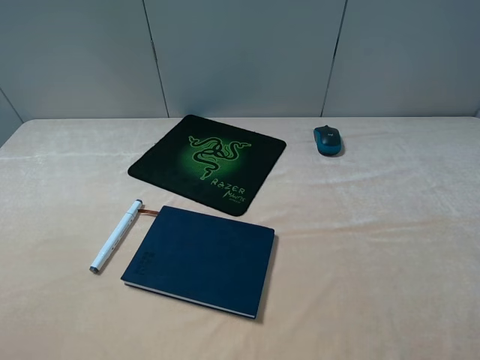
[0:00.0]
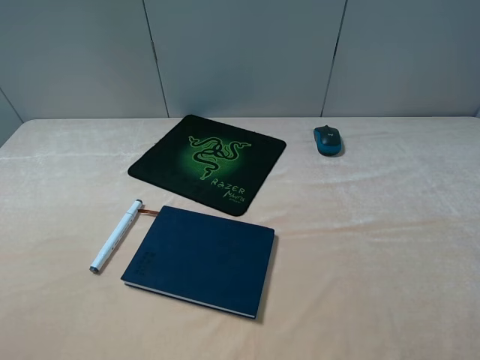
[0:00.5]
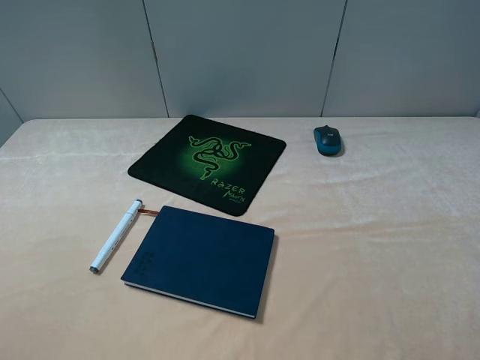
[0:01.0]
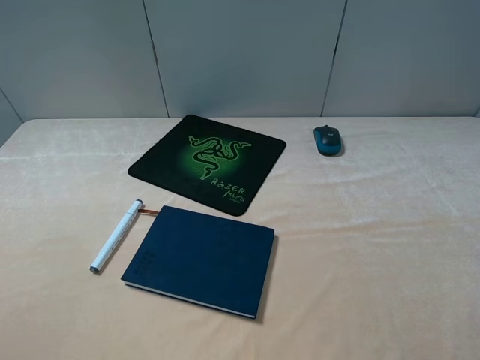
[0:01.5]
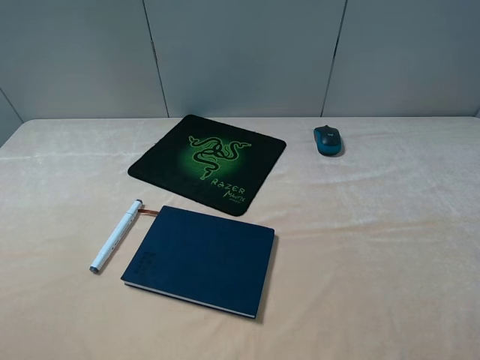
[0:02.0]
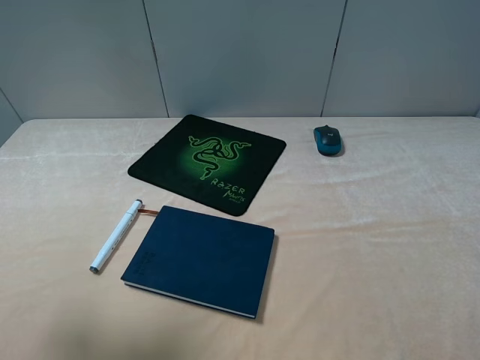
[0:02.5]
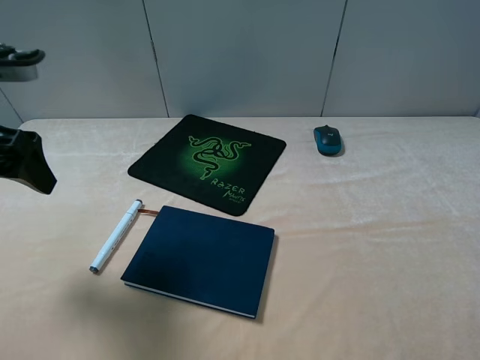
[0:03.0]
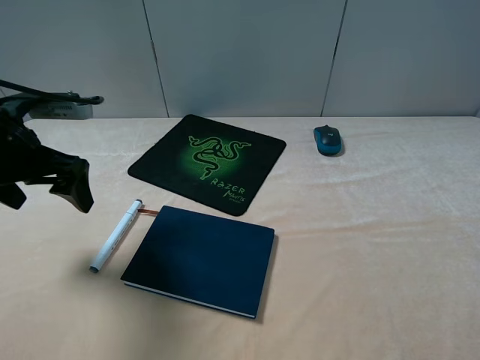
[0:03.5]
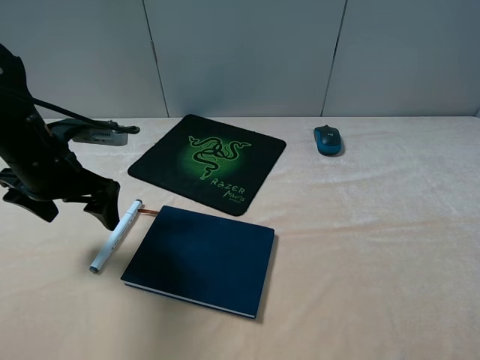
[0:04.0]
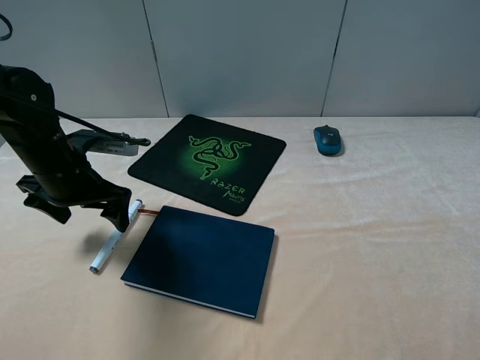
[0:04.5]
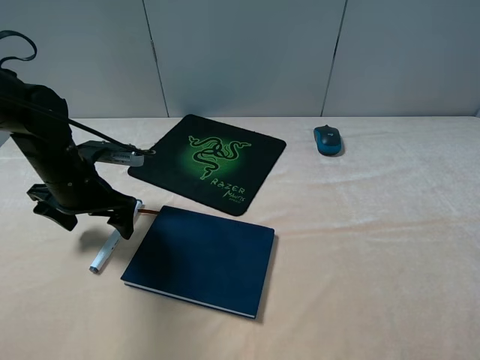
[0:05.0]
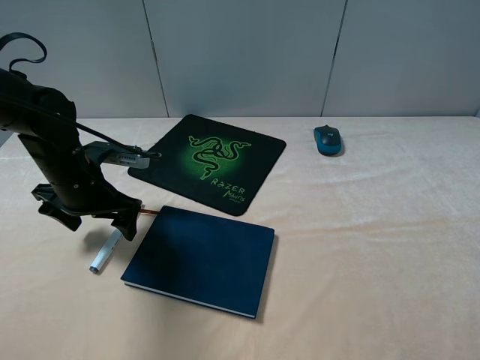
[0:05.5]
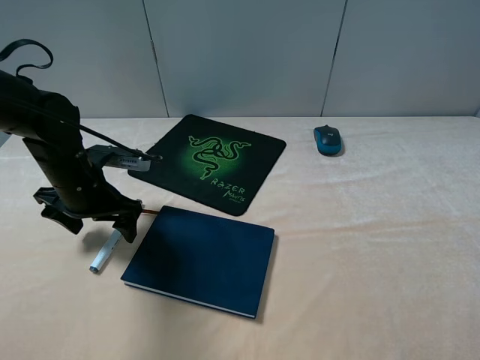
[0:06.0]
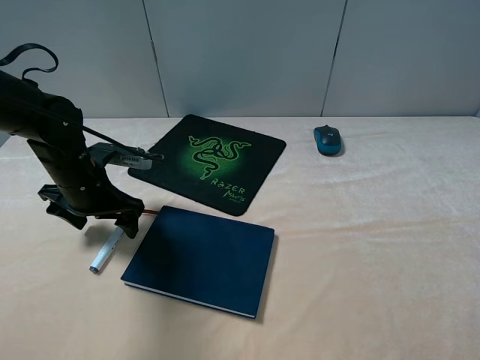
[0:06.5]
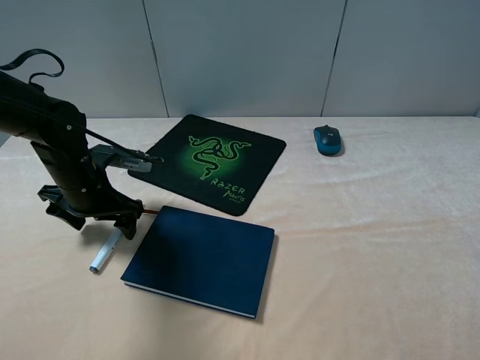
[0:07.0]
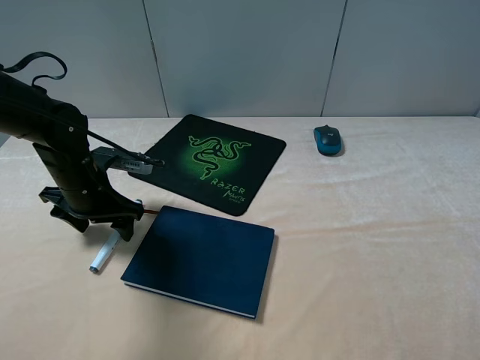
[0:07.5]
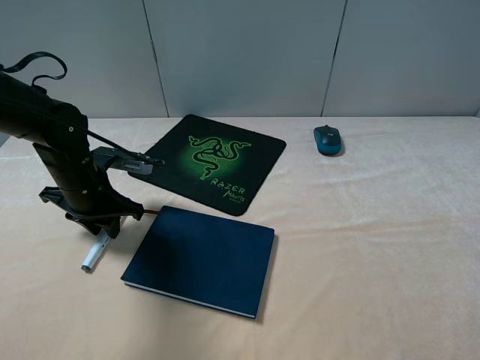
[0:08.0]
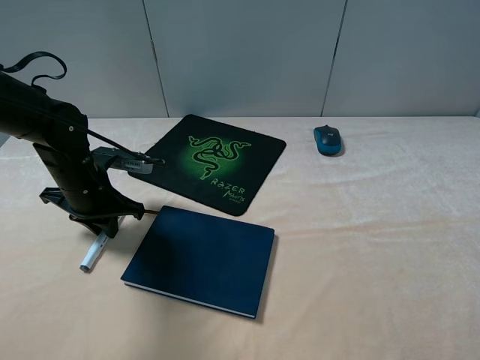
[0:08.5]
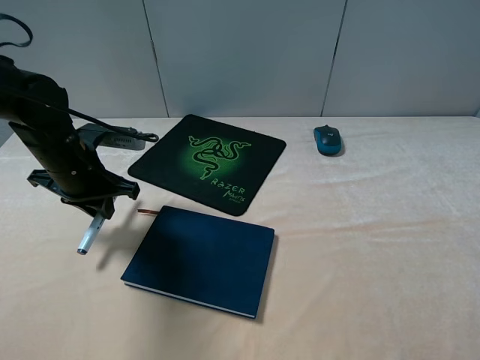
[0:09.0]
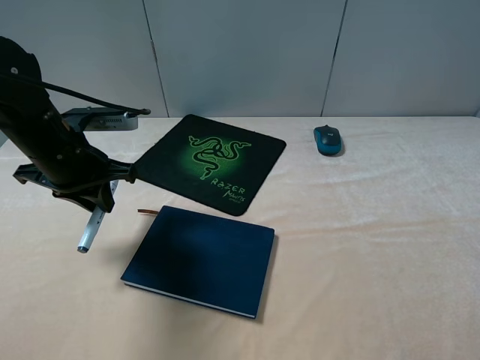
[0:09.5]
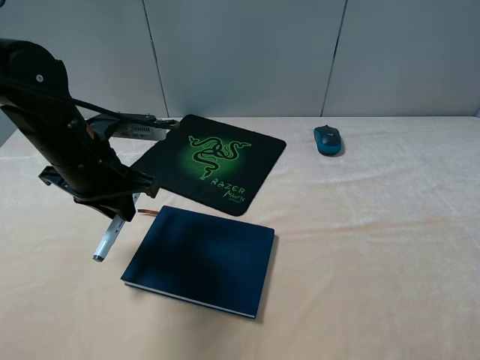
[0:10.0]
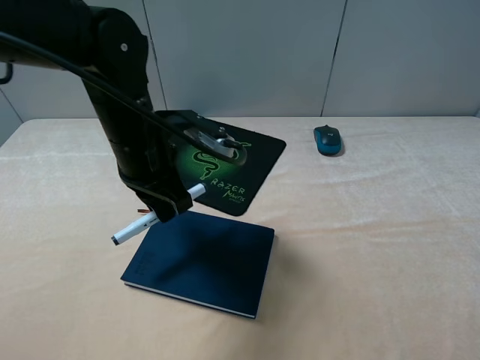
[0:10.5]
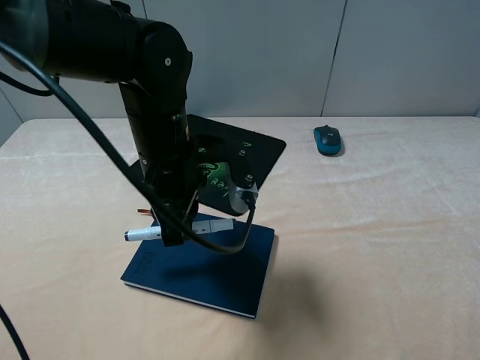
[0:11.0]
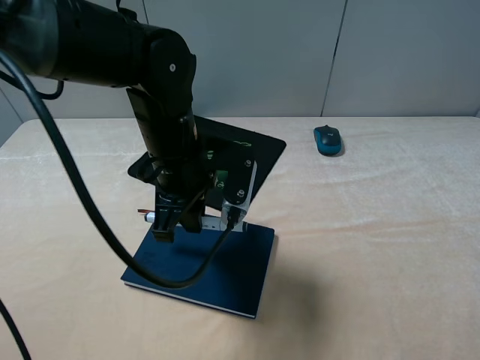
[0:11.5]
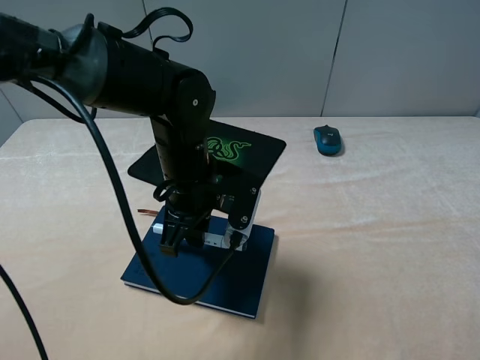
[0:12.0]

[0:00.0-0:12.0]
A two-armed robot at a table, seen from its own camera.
Step, 0:00.0 to 0:08.0: Grasp the marker with the left gripper.
0:02.0 to 0:04.0: The left gripper shifts some 30 cm forward and downward.
0:04.0 to 0:06.0: The left gripper moves downward, some 5 cm.
0:06.0 to 0:08.0: The left gripper closes its fingers.
0:08.0 to 0:10.0: The left gripper heads upward, covering approximately 10 cm.
0:10.0 to 0:12.0: The left gripper heads to the right, covering some 15 cm.

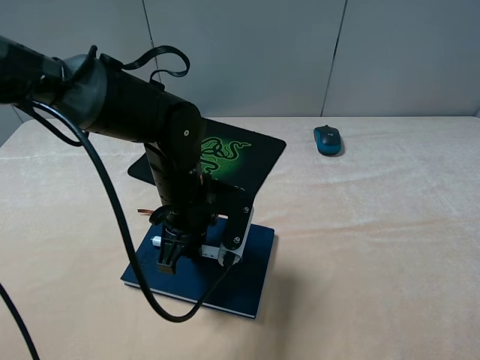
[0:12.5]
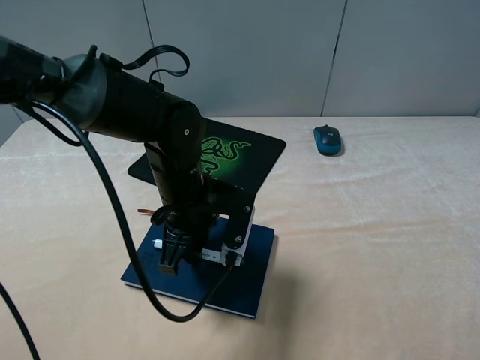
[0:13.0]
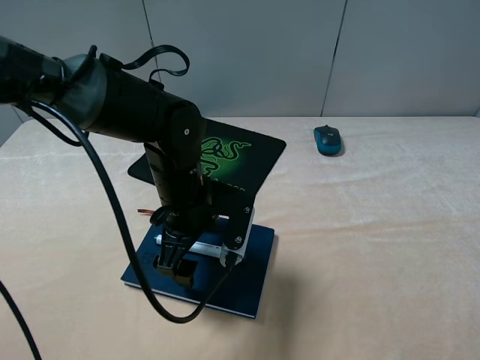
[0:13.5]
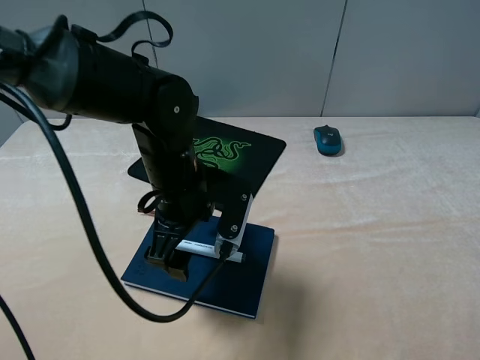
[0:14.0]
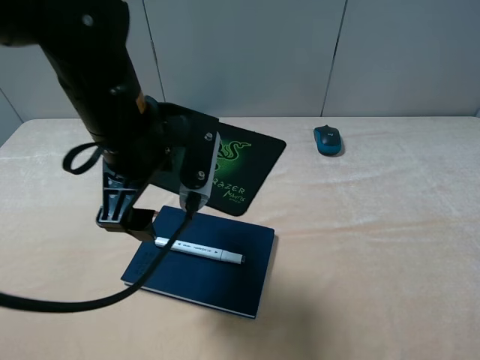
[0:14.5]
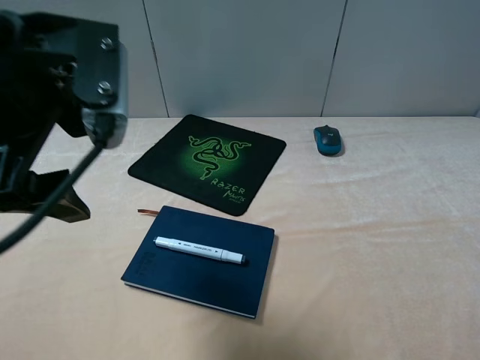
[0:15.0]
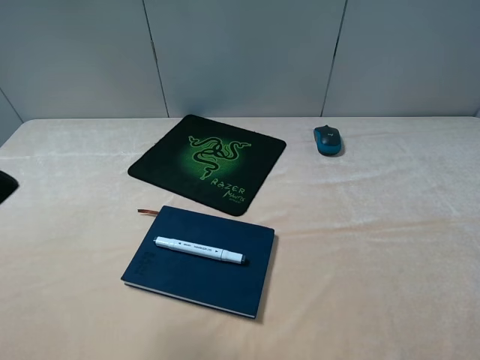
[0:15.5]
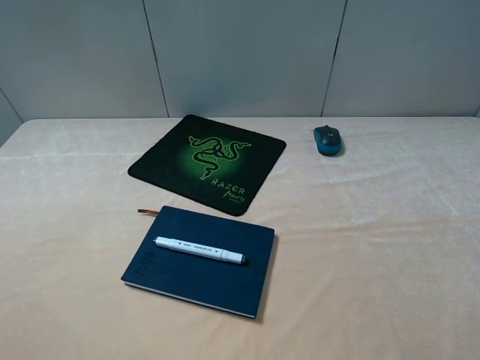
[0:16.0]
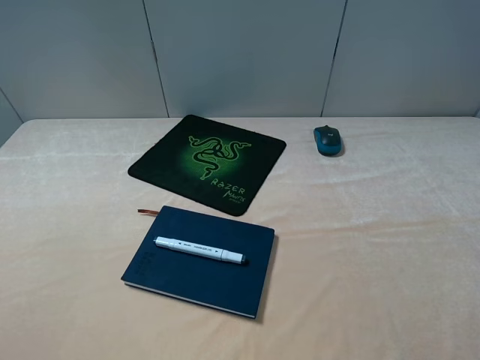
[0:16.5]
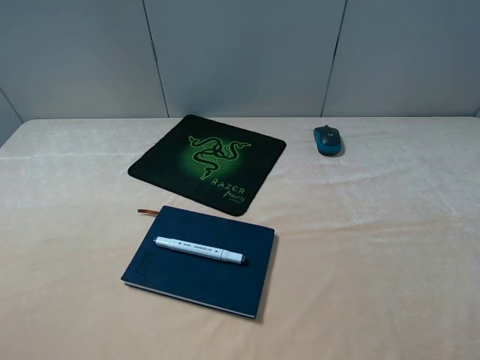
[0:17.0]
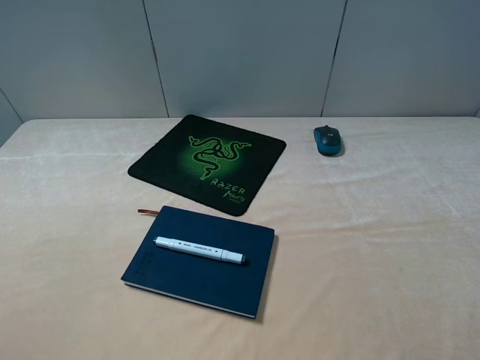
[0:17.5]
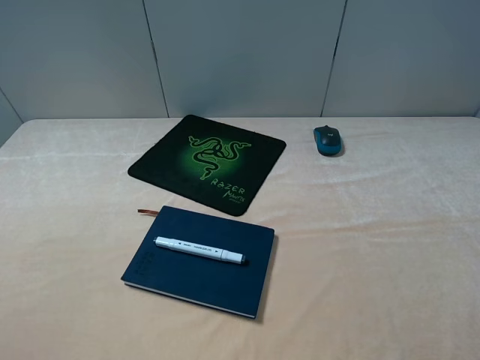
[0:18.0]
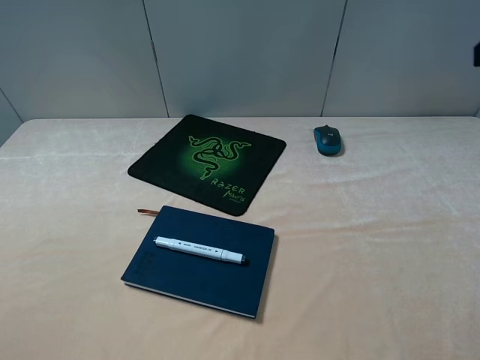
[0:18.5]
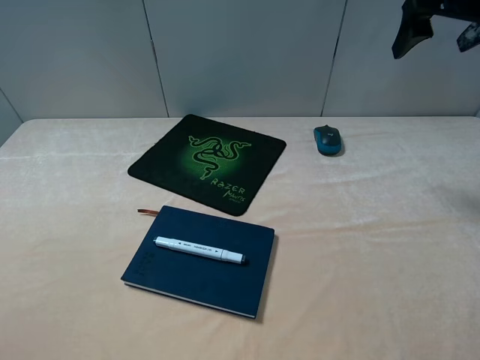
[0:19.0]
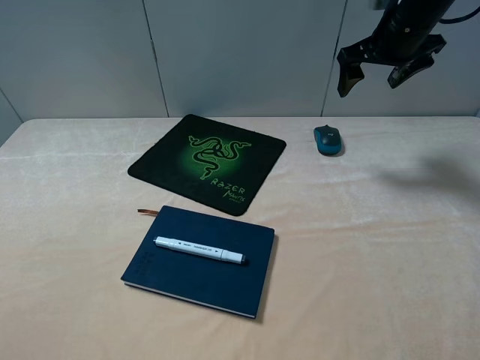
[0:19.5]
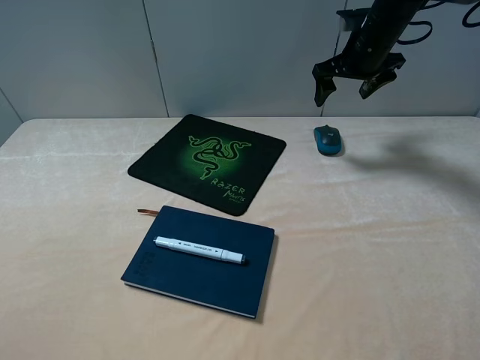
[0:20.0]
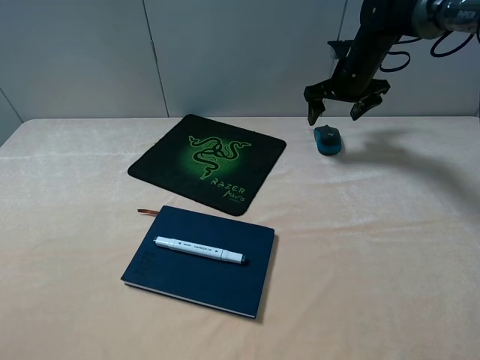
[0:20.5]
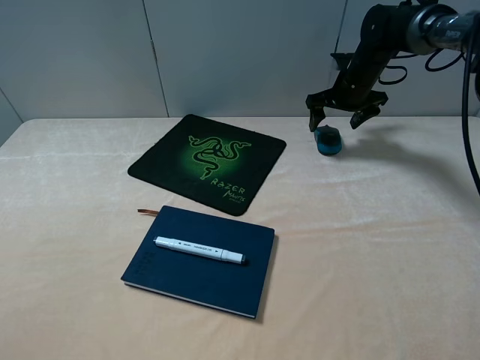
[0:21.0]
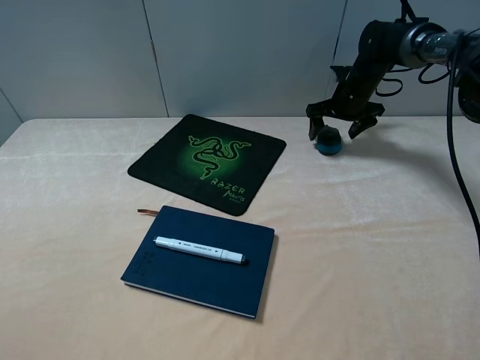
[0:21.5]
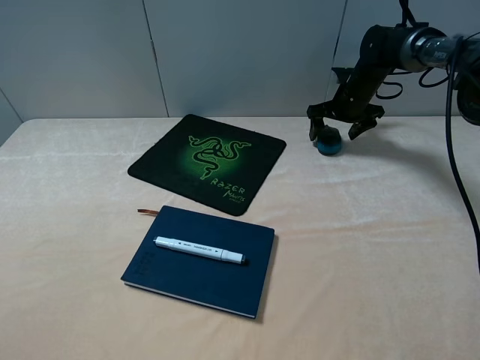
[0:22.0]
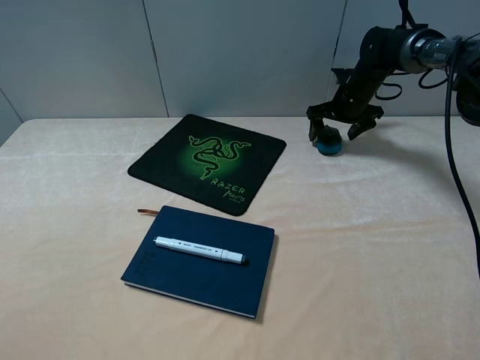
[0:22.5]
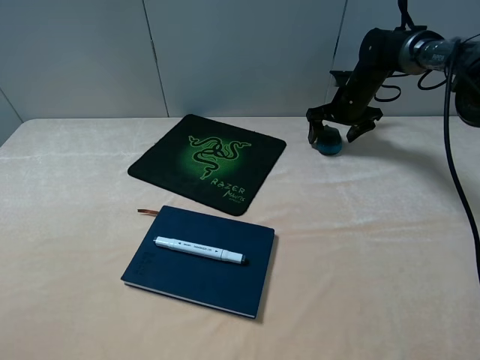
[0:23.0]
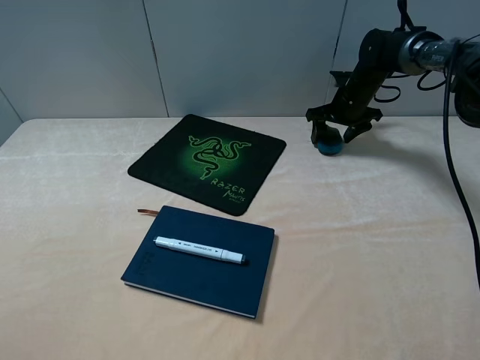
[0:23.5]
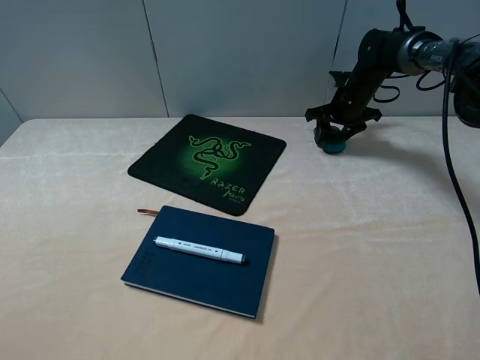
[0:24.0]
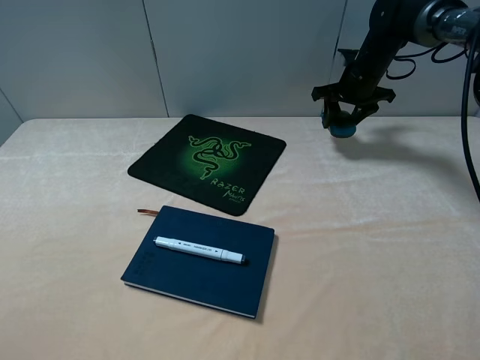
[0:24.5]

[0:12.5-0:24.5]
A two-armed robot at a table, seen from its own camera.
Step, 0:14.5 to 0:23.5: Grasp the mouse with the right gripper.
0:12.5 to 0:14.5: The left gripper heads upward, covering approximately 10 cm, and opens up.
0:14.5 to 0:16.5: The left gripper heads backward and to the left, covering approximately 30 cm.
0:18.5 to 0:20.5: The right gripper travels forward and downward by roughly 35 cm.
0:20.5 to 0:22.5: The right gripper travels downward by roughly 5 cm.
0:22.5 to 0:24.5: The right gripper is displaced upward by roughly 5 cm, and closes up.

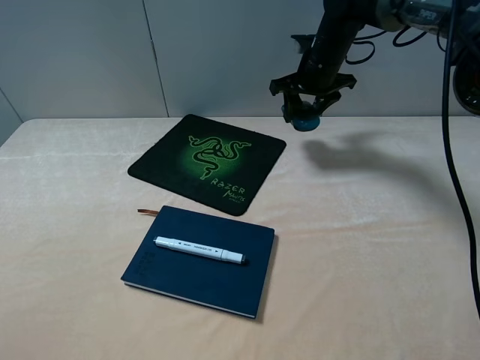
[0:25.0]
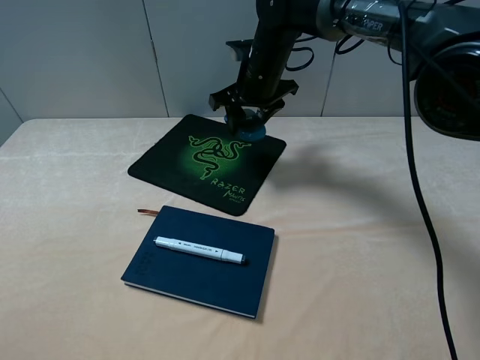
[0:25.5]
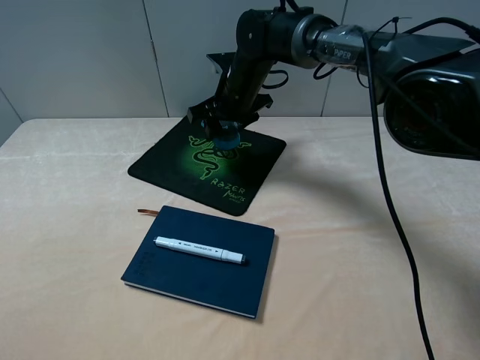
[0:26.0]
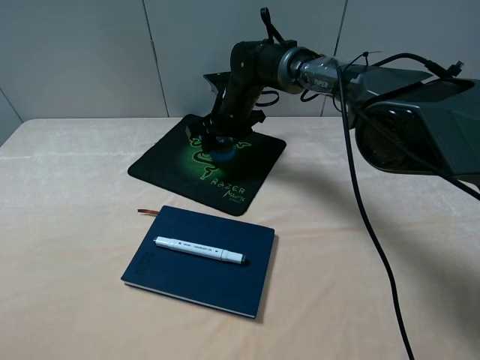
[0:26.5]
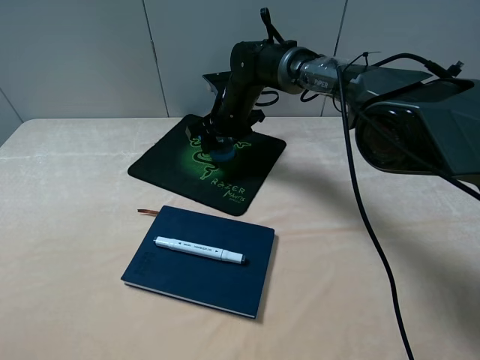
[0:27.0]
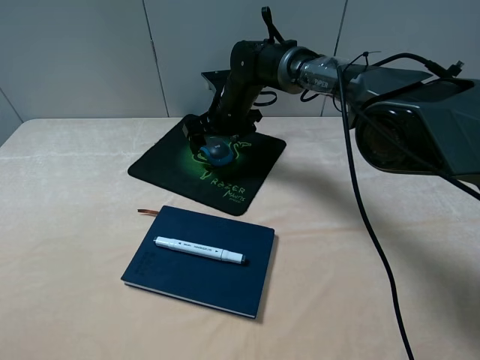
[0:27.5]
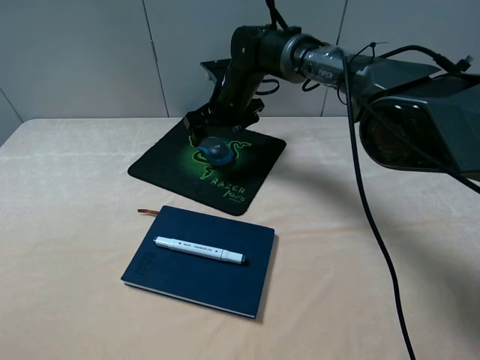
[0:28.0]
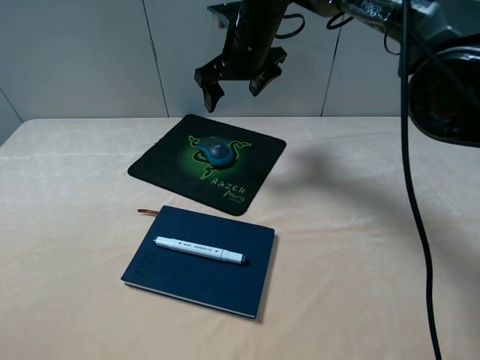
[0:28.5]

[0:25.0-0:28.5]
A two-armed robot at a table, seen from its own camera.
Step, 0:25.0 to 0:28.0: Place the mouse on the mouse pad with the right gripper.
0:25.0 to 0:27.0: The right gripper travels to the left and downward by roughly 15 cm.
0:27.0 to 0:28.5: The right gripper travels upward by about 15 cm, and opens.
